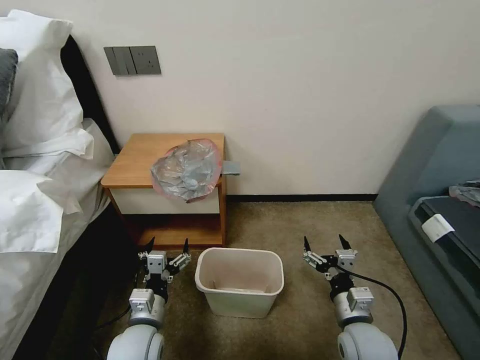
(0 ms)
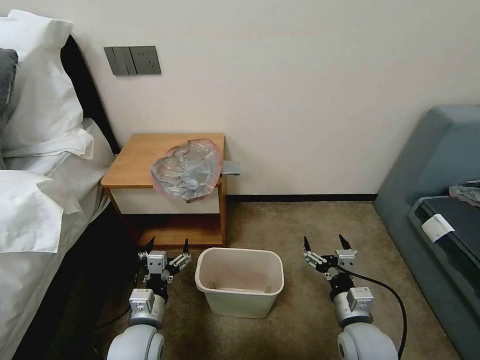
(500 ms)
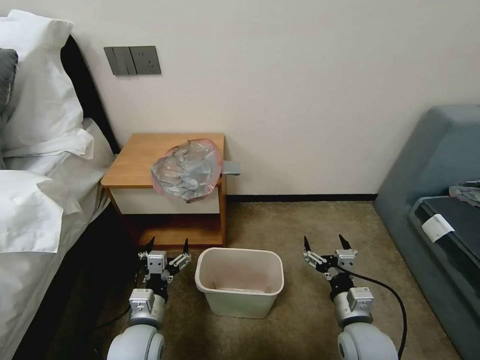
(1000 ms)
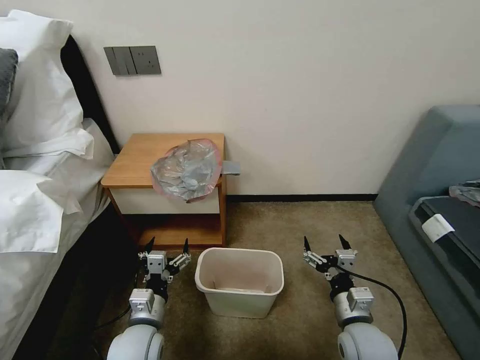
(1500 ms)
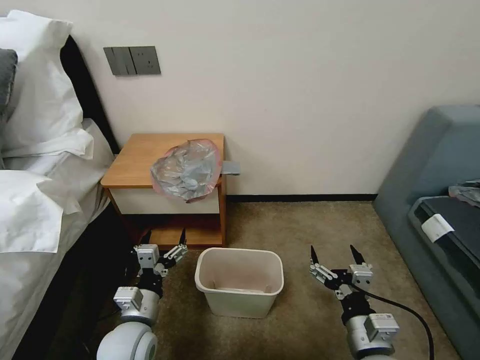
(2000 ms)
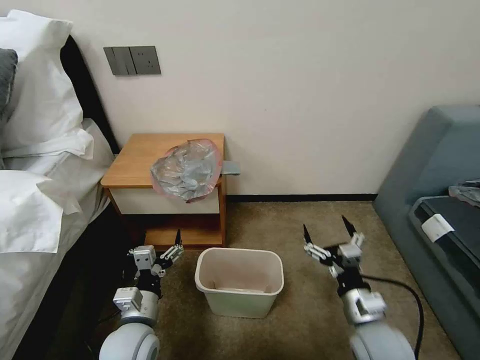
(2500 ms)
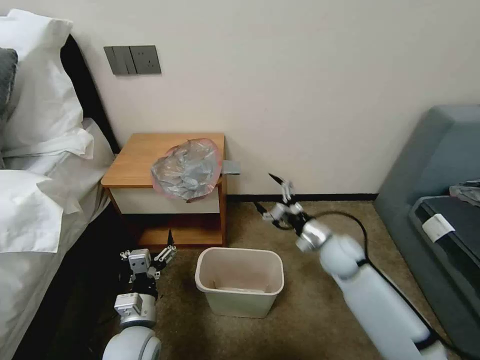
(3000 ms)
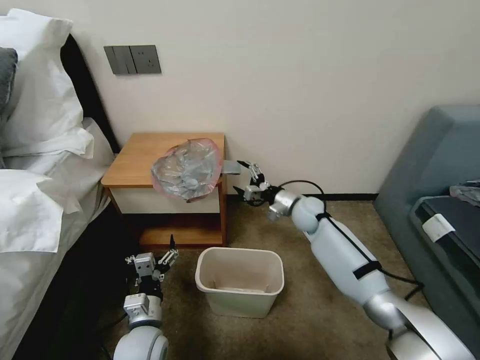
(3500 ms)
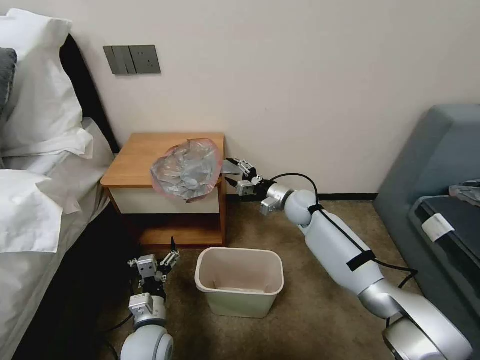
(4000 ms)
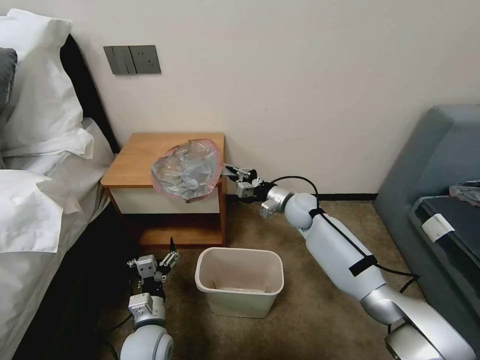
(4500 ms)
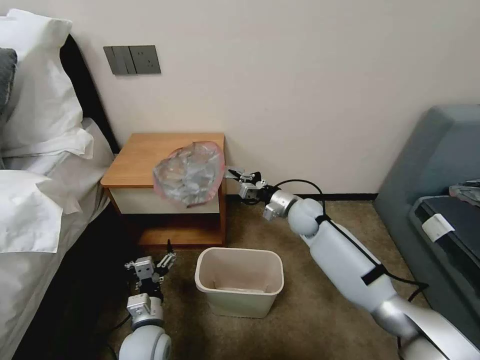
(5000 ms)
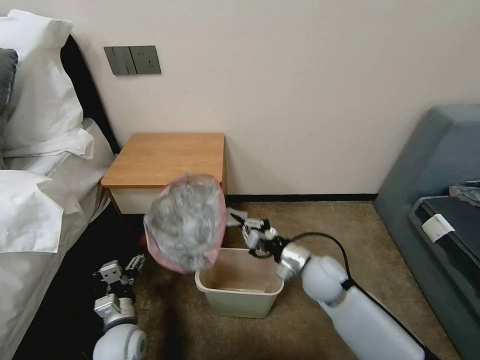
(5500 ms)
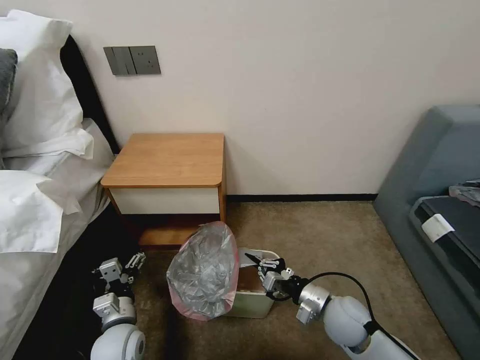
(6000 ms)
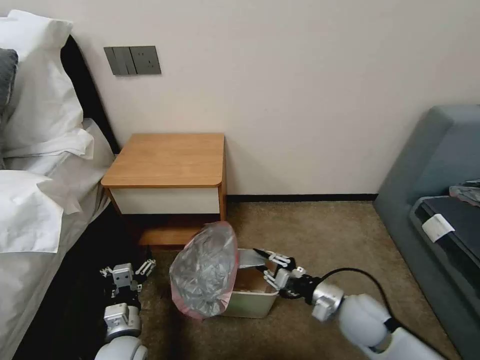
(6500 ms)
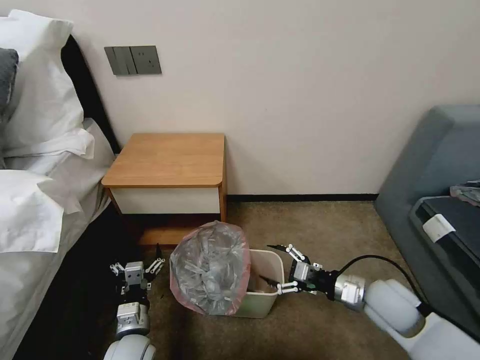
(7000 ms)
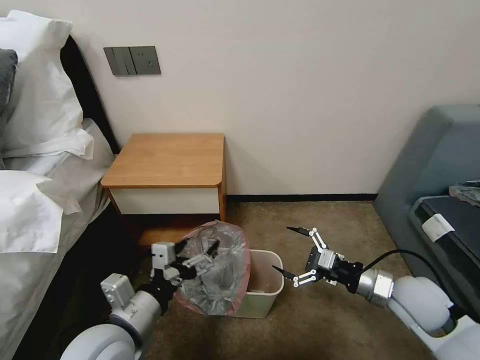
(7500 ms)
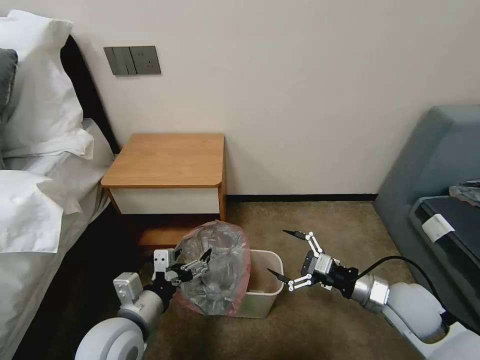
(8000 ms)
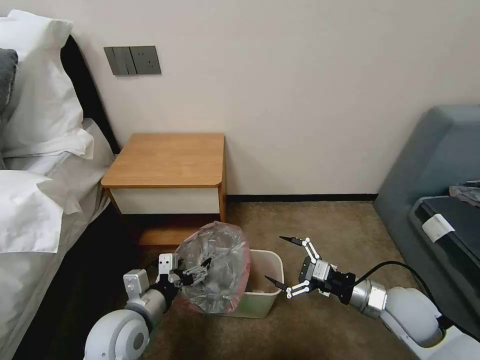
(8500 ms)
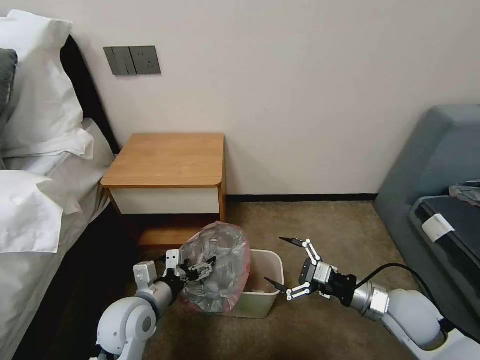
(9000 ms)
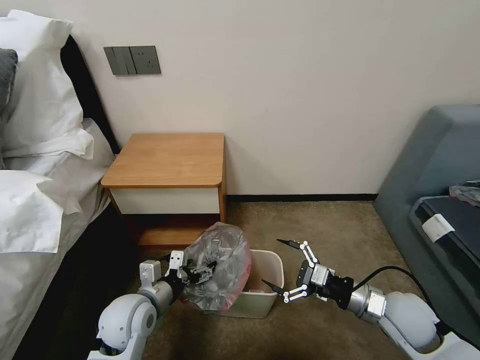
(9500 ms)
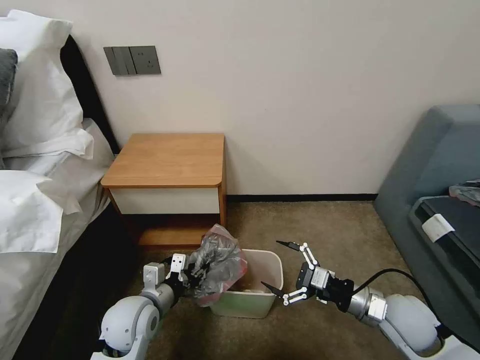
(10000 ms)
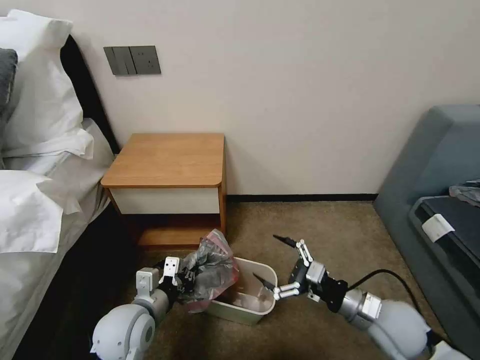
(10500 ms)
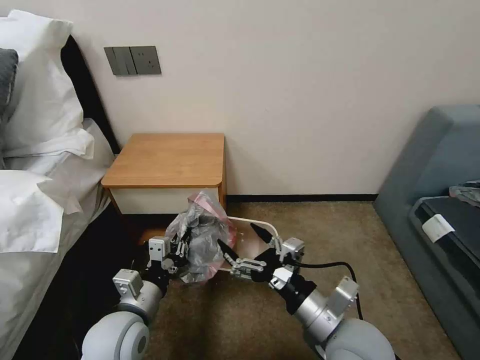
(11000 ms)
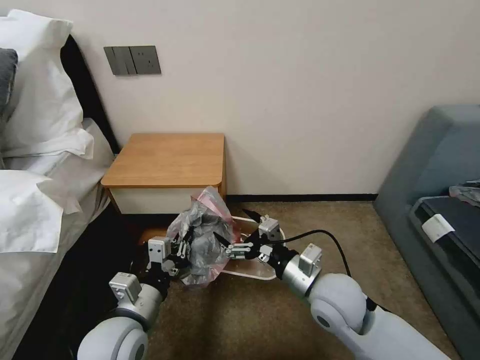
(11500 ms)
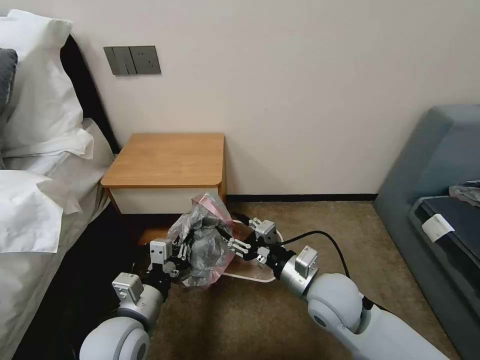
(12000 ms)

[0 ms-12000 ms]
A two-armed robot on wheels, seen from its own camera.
Task of the whole recording: Pick up the garbage bag from the table and place it over the trash can.
2000 ms to 4000 ms: The left gripper goes approximately 5 cm downward; the right gripper goes about 40 cm forward.
4000 ms to 6000 ms: The right gripper goes about 25 cm backward, and closes up; the left gripper heads to the left, covering roughly 5 cm.
6000 ms to 8000 ms: The left gripper goes some 15 cm upward, while the right gripper heads to the right and upward, covering approximately 15 cm, and opens.
8000 ms to 10000 ms: The left gripper is displaced forward and downward by roughly 10 cm, and closes up.
10000 ms to 12000 ms: The left gripper travels backward by approximately 5 cm, while the right gripper moves to the left, roughly 15 cm, and closes up.

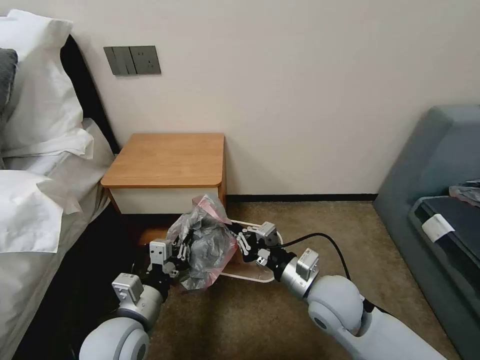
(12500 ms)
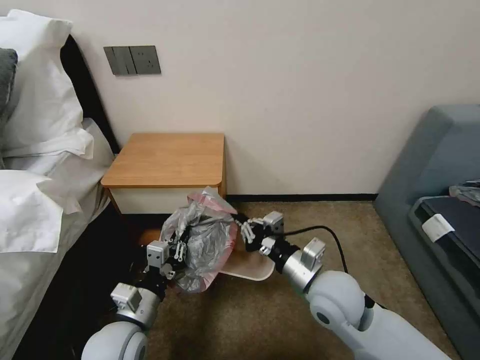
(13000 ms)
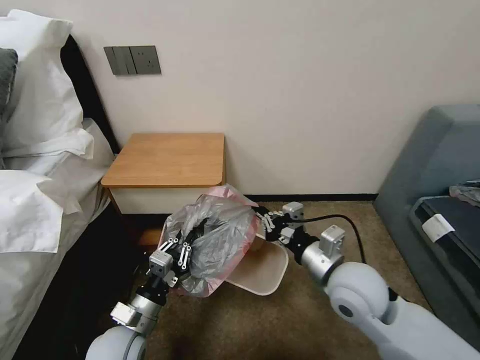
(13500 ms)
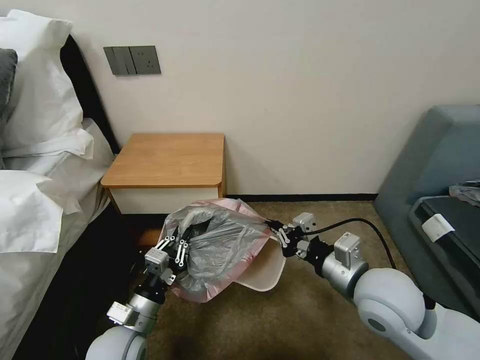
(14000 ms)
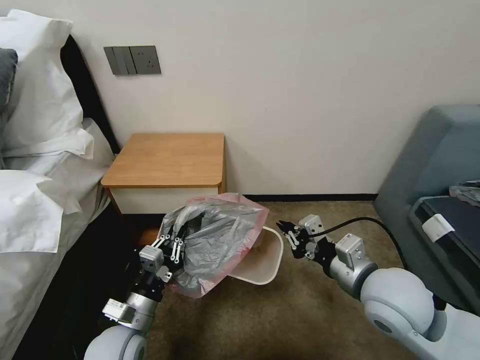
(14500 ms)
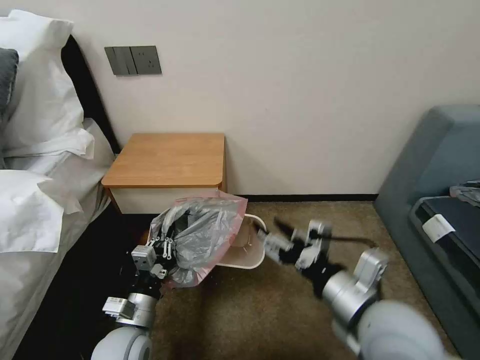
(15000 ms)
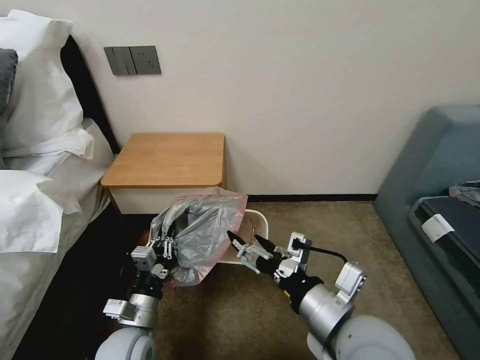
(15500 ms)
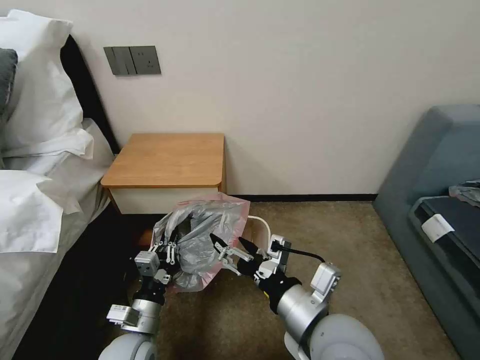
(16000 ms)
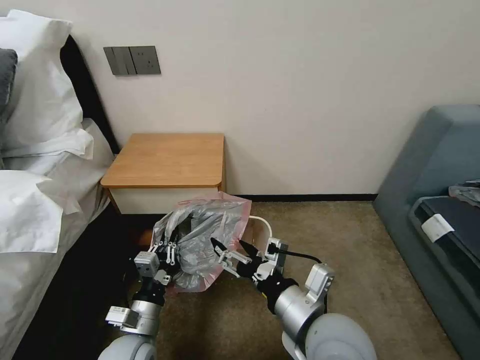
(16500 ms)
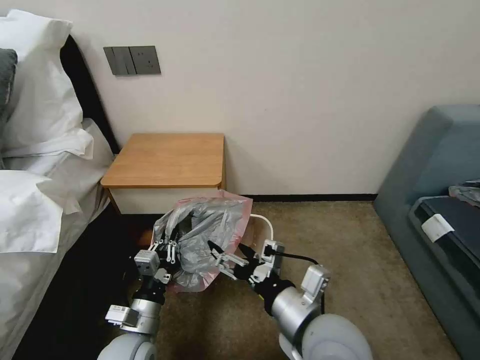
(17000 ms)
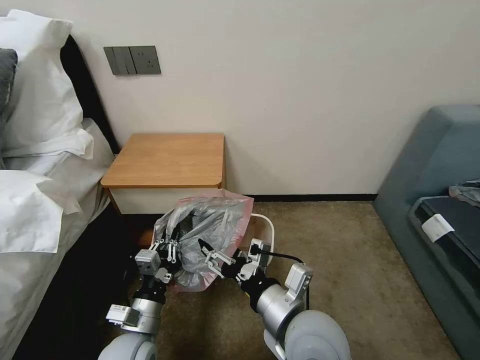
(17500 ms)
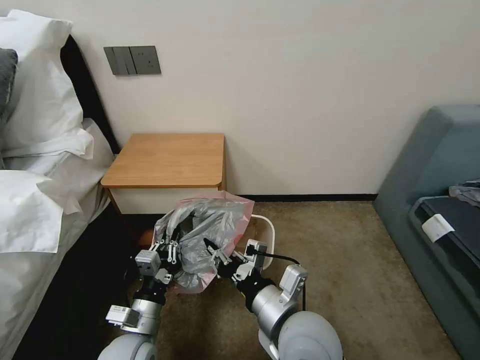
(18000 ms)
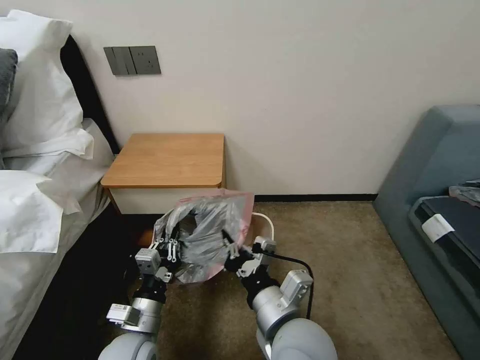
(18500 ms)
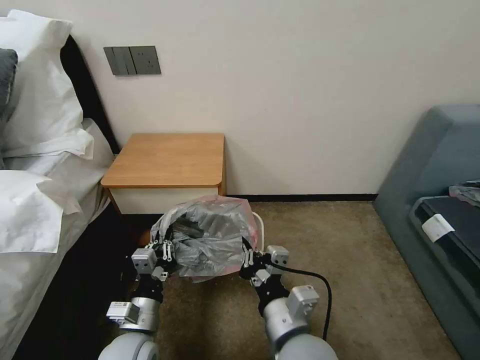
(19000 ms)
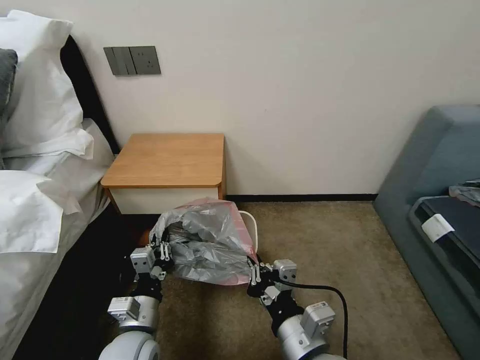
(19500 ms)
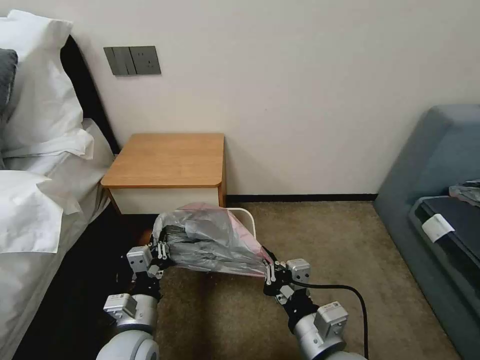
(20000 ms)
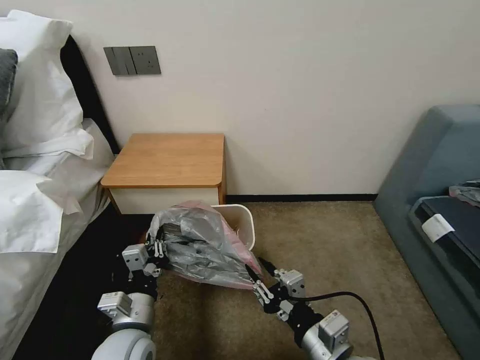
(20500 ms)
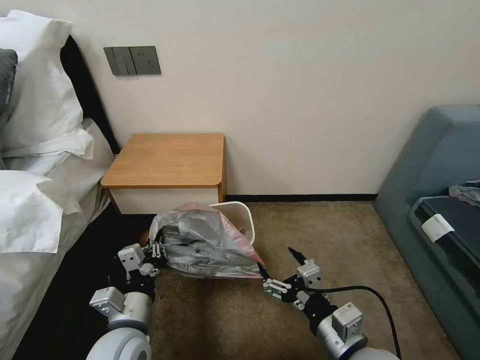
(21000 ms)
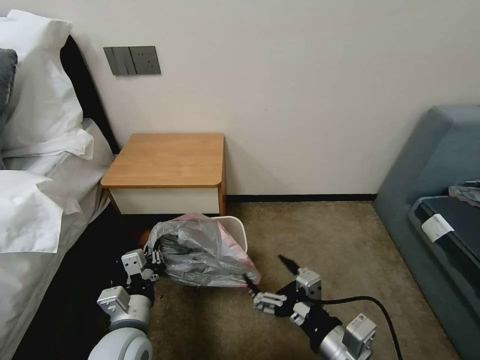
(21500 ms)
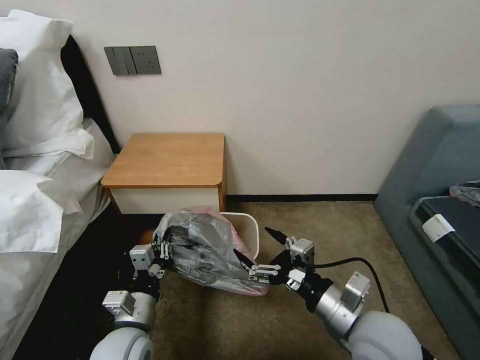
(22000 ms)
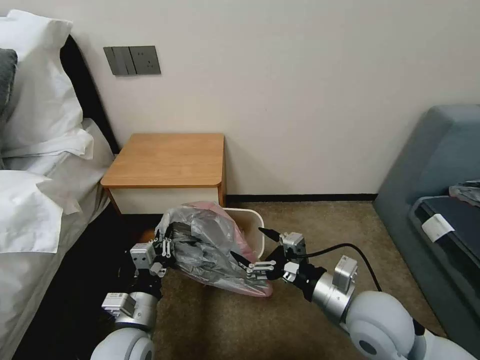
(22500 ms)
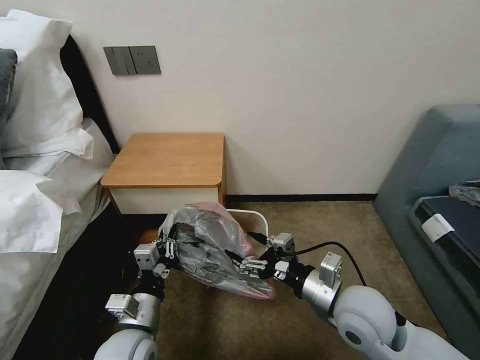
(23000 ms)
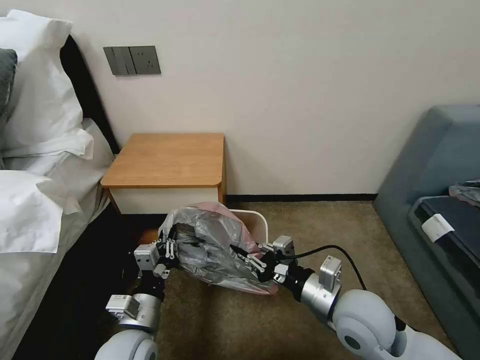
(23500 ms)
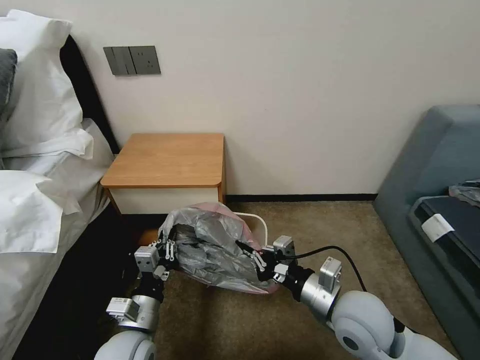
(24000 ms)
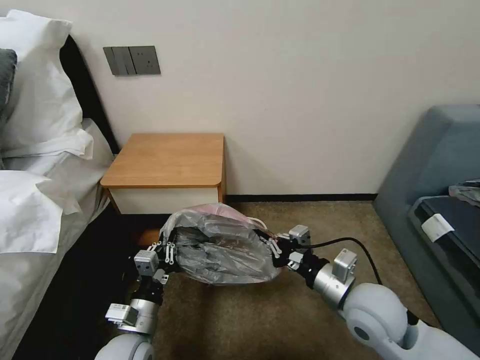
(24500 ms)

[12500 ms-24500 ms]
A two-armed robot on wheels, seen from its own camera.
Task of the whole recording: Pick up the garbage bag from the table and place it over the trash can.
12500 ms to 14500 ms: The right gripper shifts roughly 10 cm upward and to the right. The left gripper shifts approximately 5 cm downward.
14500 ms to 16500 ms: The right gripper heads to the left and backward, covering some 10 cm, and opens up.
16500 ms to 18500 ms: The right gripper is displaced to the left by some 5 cm, and closes its fingers.
18500 ms to 20500 ms: The right gripper heads to the right, covering approximately 10 cm, and opens its fingers.
20500 ms to 22500 ms: The right gripper shifts about 10 cm forward, and opens.
22500 ms to 24500 ms: The right gripper closes up.

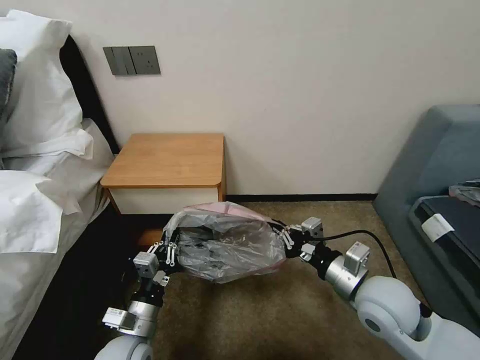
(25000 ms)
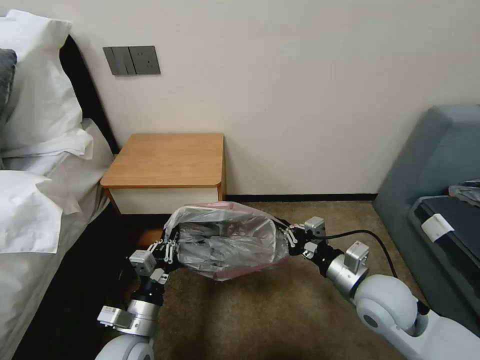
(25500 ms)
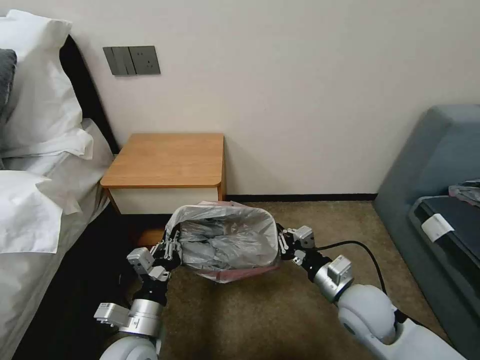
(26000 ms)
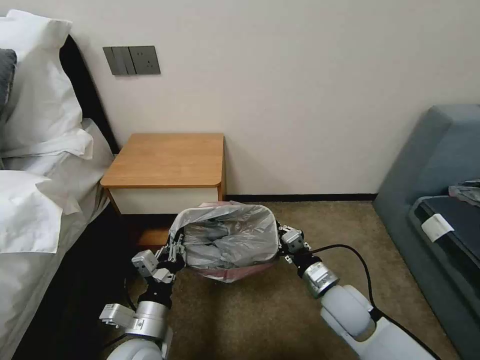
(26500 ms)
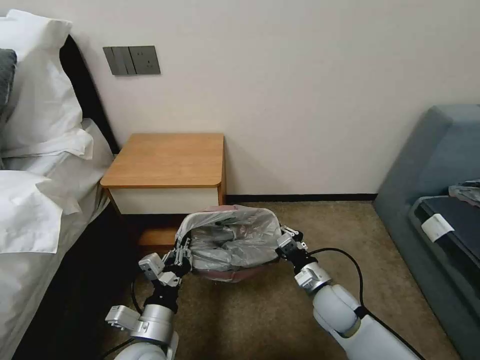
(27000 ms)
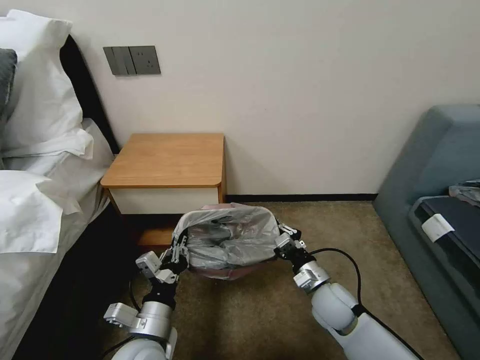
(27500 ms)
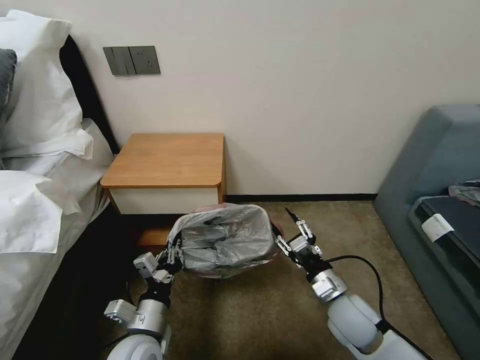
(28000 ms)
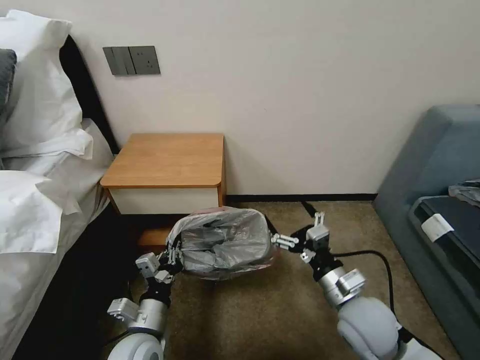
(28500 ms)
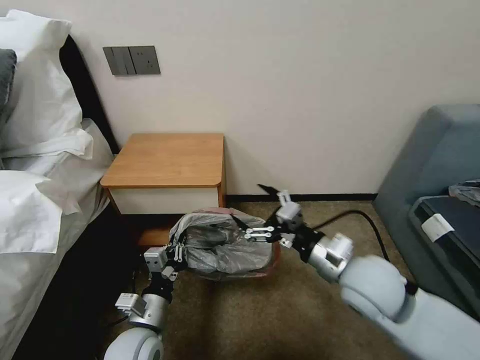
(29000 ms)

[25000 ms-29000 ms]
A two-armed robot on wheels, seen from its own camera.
Task of the whole recording: Pick up the garbage bag from the table and place it over the trash can.
25000 ms to 27000 ms: The right gripper shifts about 15 cm downward; the left gripper shifts by some 5 cm.
27000 ms to 29000 ms: The right gripper moves upward, roughly 15 cm, and opens up, while the left gripper moves about 5 cm.
